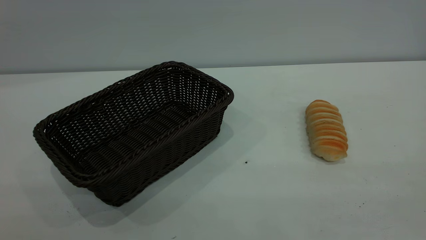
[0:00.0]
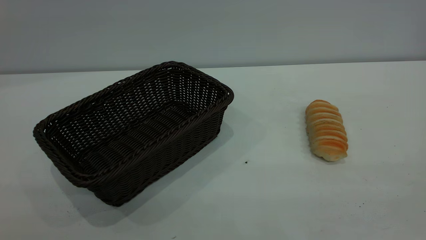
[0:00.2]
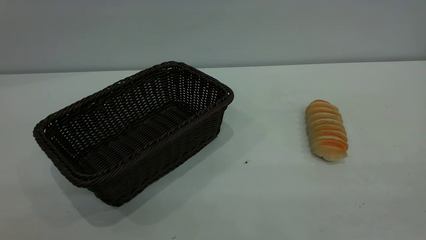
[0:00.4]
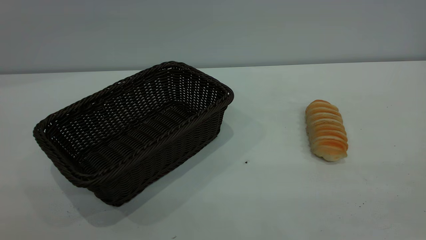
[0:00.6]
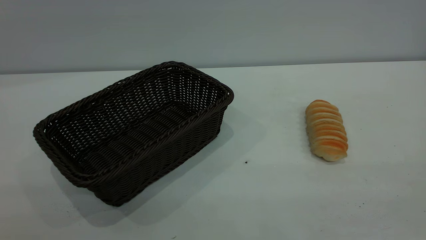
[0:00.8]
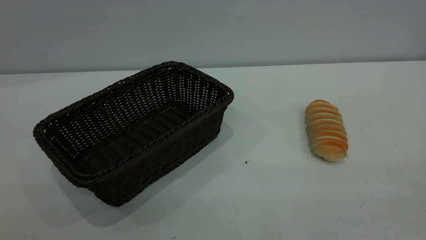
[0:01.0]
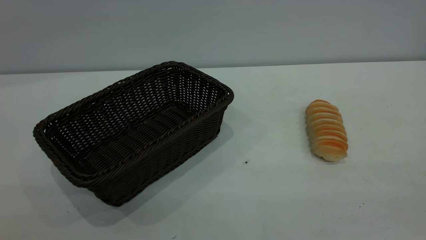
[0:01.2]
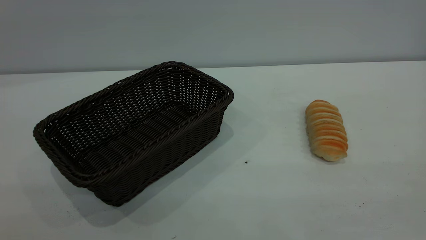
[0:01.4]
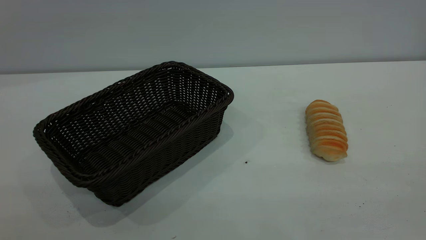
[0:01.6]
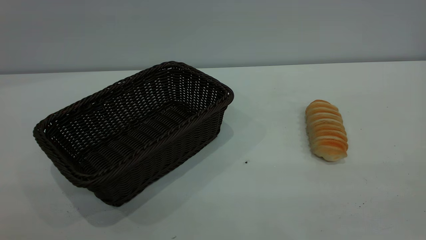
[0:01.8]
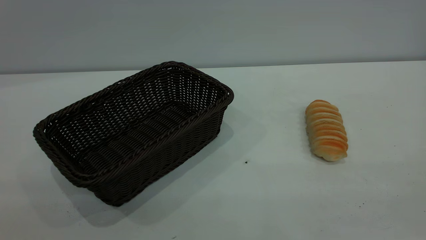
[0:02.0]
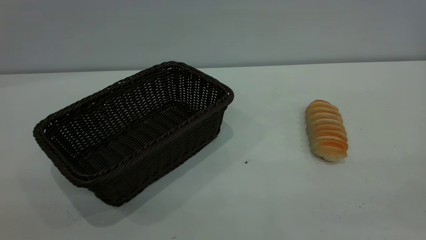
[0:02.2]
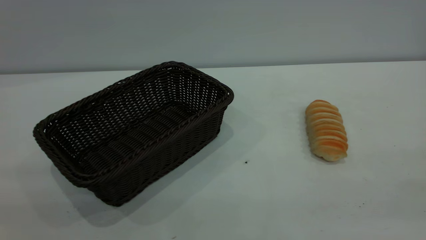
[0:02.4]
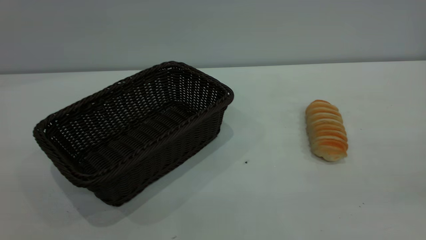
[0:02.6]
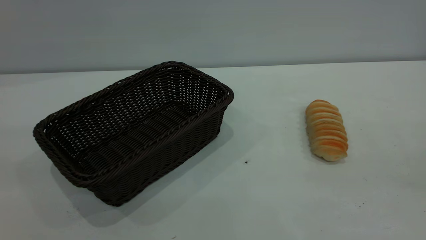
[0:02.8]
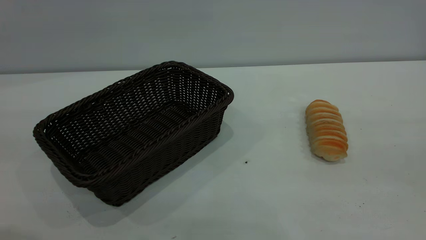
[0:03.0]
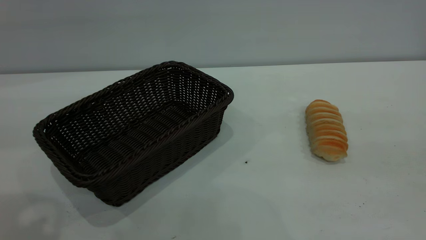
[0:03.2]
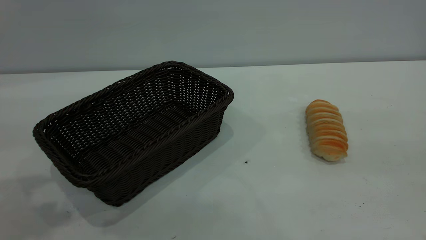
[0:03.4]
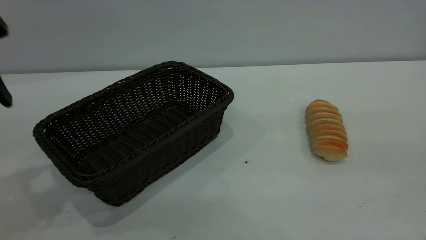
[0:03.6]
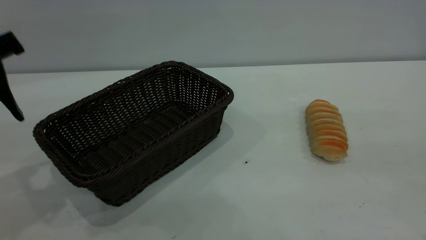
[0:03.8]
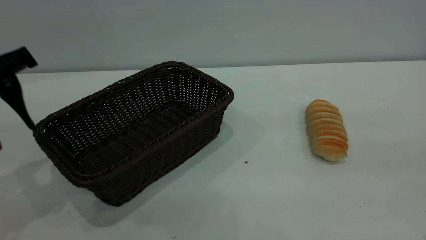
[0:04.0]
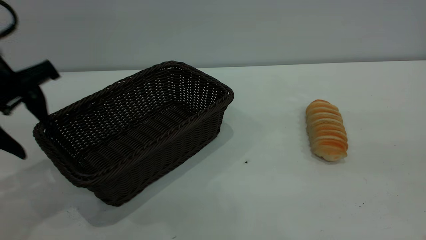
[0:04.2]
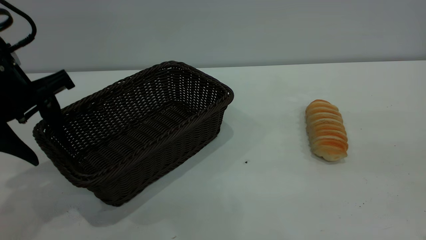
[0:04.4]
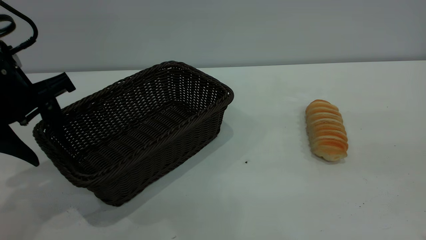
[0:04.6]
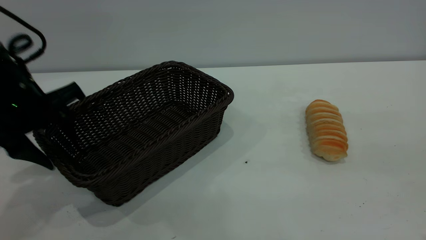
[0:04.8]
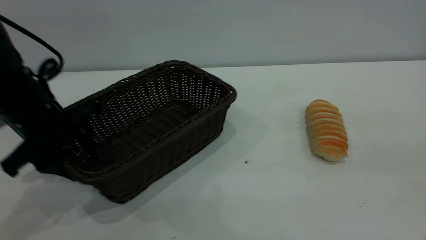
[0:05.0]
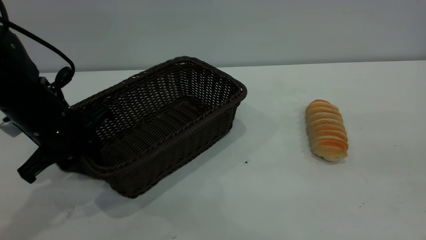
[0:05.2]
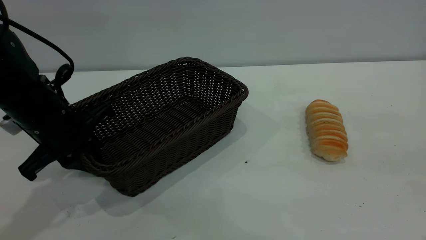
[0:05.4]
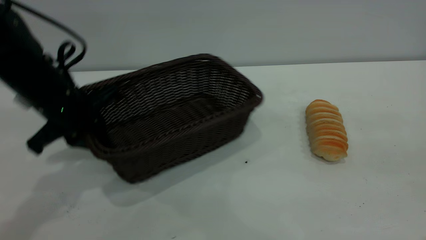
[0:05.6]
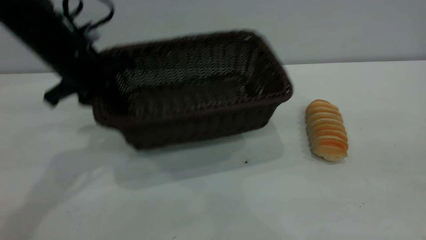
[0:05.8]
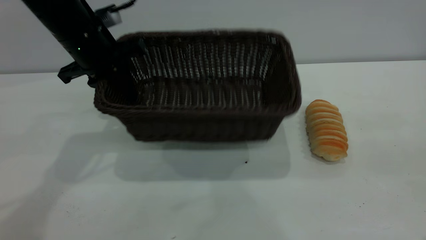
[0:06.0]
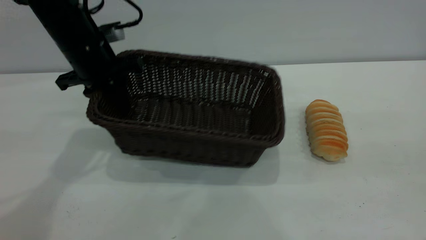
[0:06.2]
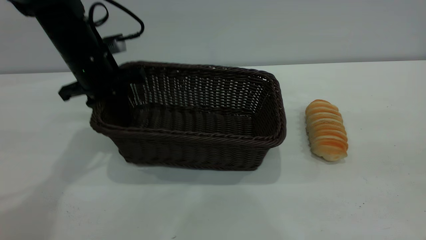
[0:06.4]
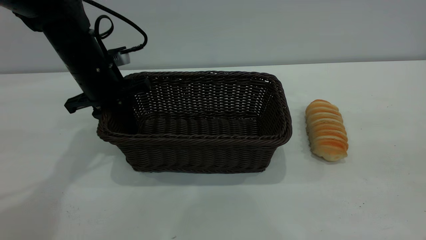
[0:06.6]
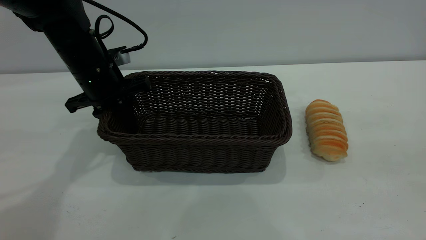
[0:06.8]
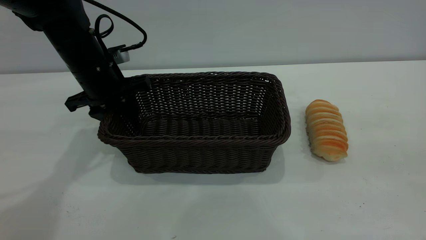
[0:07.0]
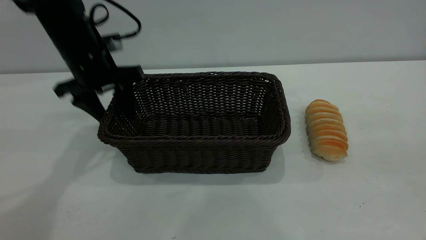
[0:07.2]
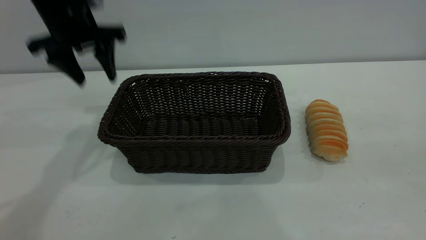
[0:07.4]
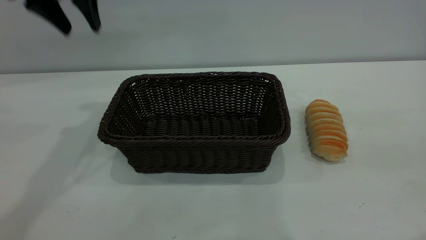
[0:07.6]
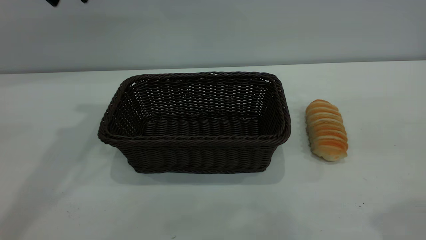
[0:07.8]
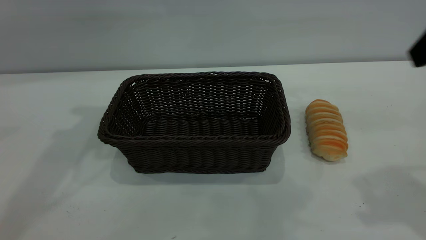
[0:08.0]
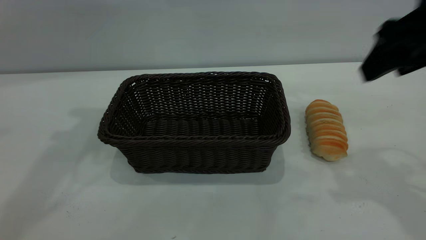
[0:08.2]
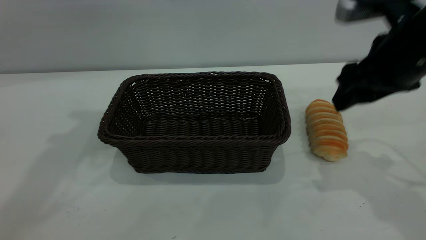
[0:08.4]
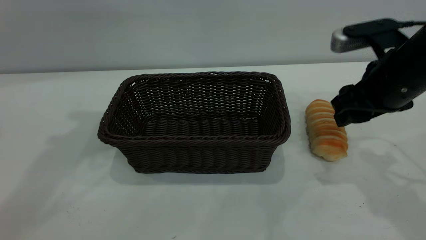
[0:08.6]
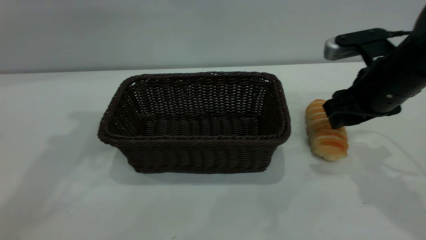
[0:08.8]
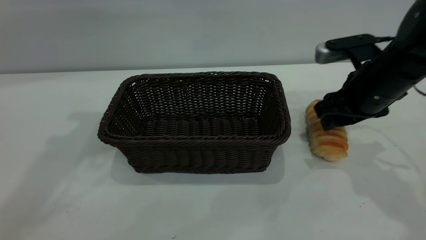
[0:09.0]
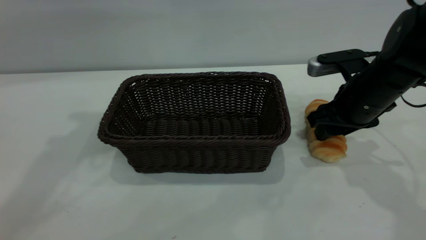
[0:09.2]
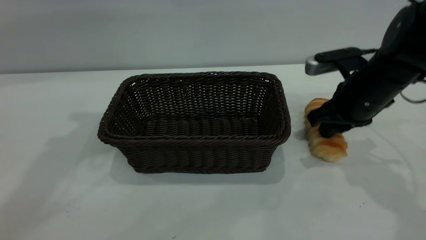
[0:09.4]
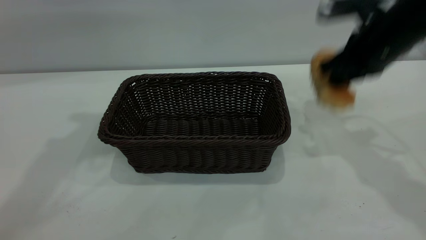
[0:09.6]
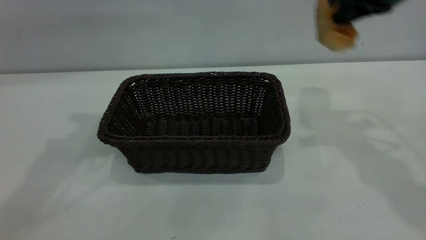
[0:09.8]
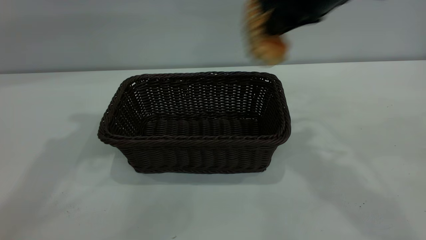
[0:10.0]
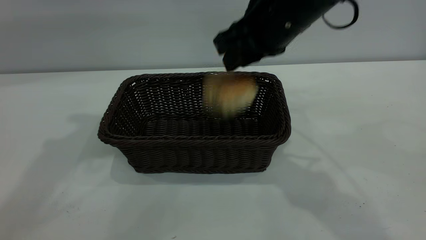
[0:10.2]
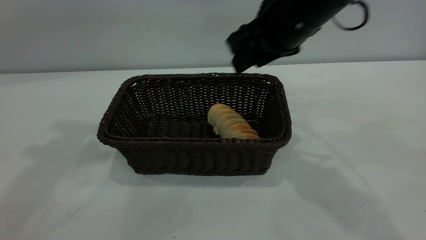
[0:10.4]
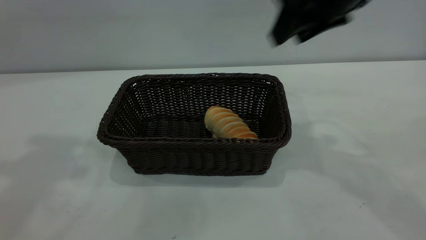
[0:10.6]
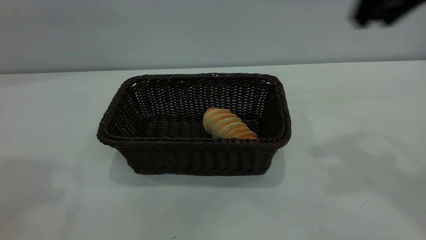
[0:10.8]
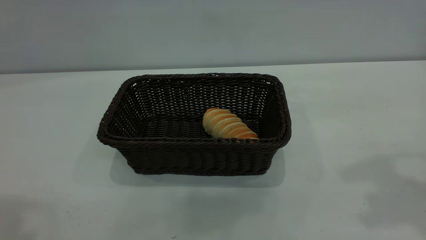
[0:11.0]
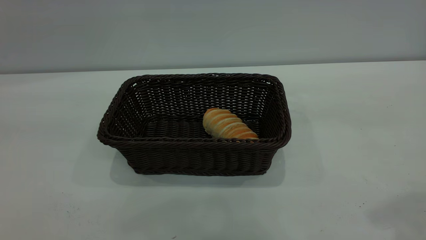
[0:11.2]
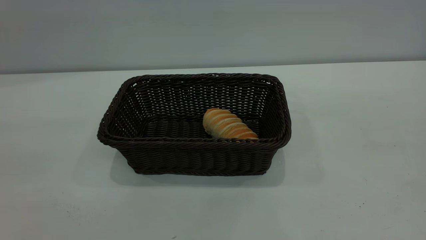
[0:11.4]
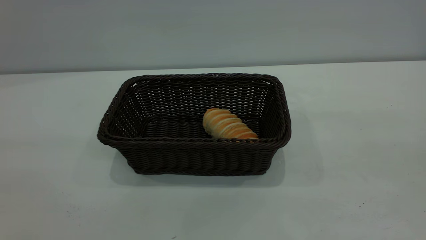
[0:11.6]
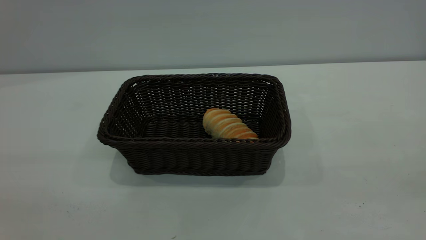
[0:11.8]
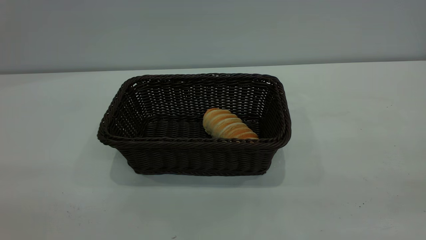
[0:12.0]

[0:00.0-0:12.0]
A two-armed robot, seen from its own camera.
Task of the whole recording: One hand grasps the black basket and places it in the middle of the table, while the other hand picks up the long bread and puts it into the black basket.
Step, 0:00.0 to 0:07.2: Move the basket to the center of view.
Step, 0:09.6 to 0:10.4: place the bread into the basket.
0:00.0 to 0:01.6: Neither gripper changes place.
0:03.0 to 0:04.4: The left gripper shifts some 20 cm downward and forward.
0:04.4 to 0:06.0: The left gripper shifts about 15 cm forward and to the right, and closes.
0:06.0 to 0:07.6: The left gripper heads upward, covering about 15 cm, and opens up.
0:07.6 to 0:09.0: The left gripper goes approximately 10 cm upward. Meanwhile the right gripper is displaced forward and downward by approximately 30 cm.
0:09.0 to 0:10.4: The left gripper changes place by some 5 cm; the right gripper travels upward and to the left by about 15 cm, and closes and opens again.
0:10.4 to 0:12.0: The right gripper goes about 40 cm backward and to the right, while the left gripper travels backward by some 35 cm.
